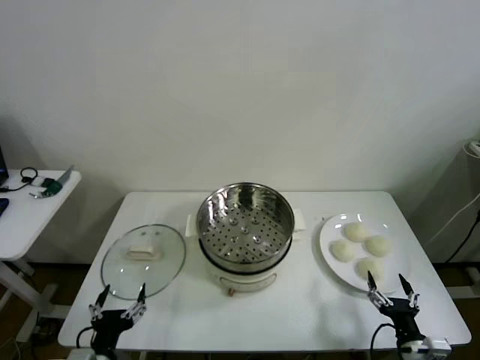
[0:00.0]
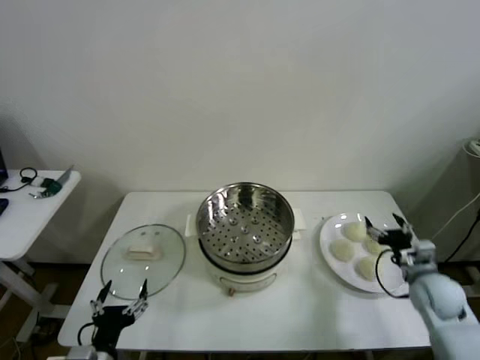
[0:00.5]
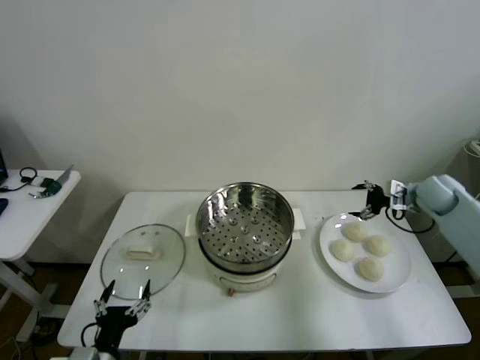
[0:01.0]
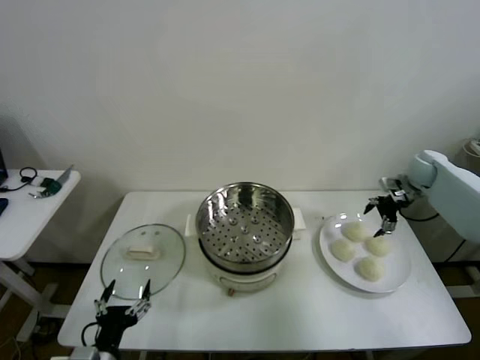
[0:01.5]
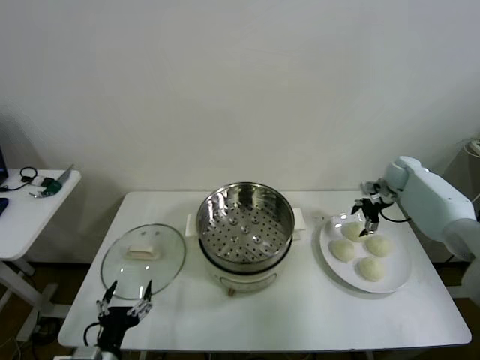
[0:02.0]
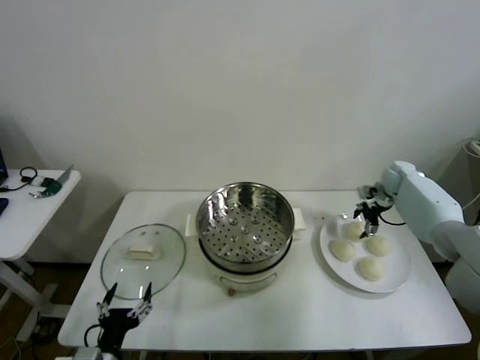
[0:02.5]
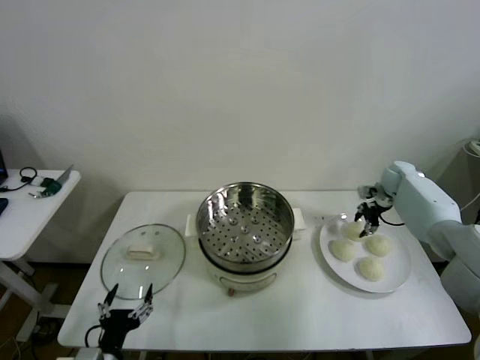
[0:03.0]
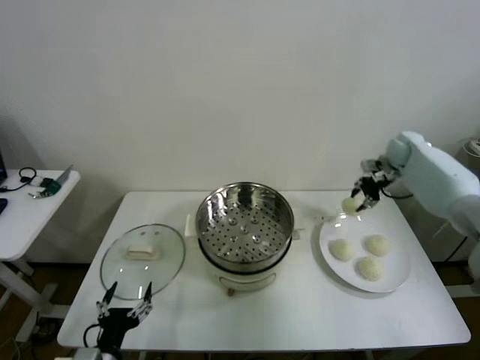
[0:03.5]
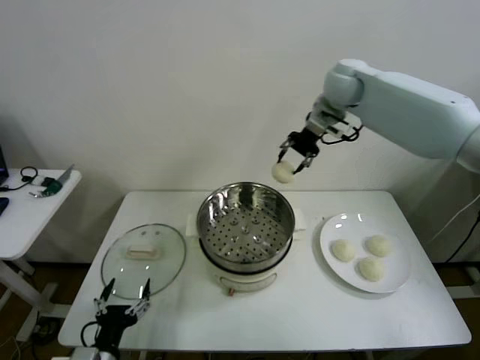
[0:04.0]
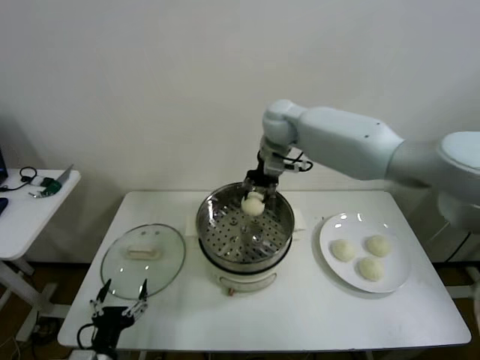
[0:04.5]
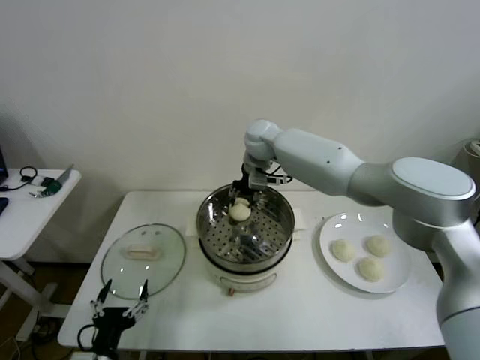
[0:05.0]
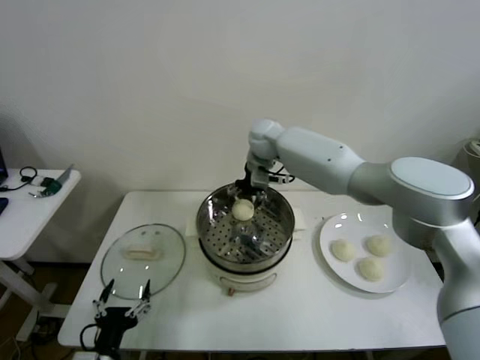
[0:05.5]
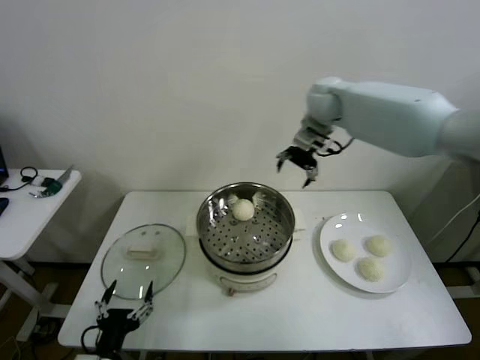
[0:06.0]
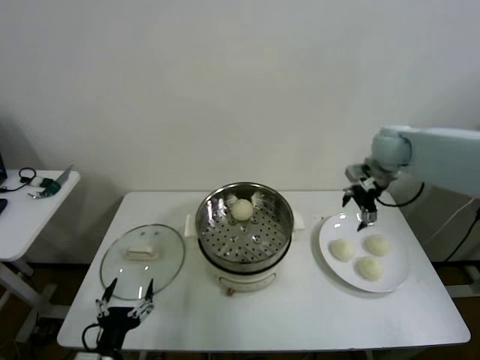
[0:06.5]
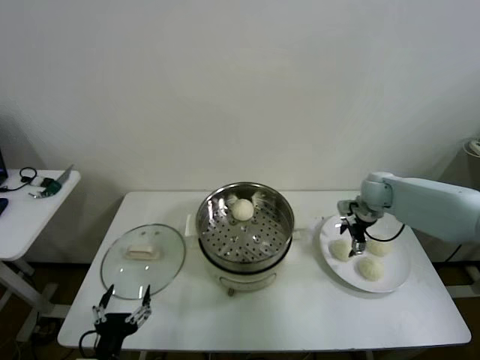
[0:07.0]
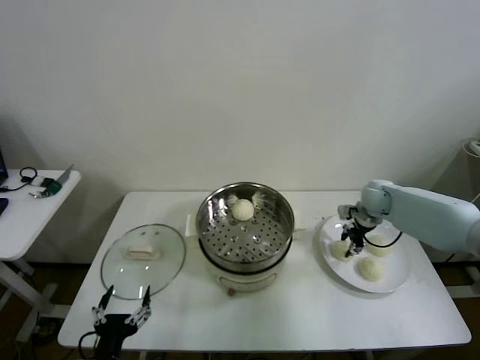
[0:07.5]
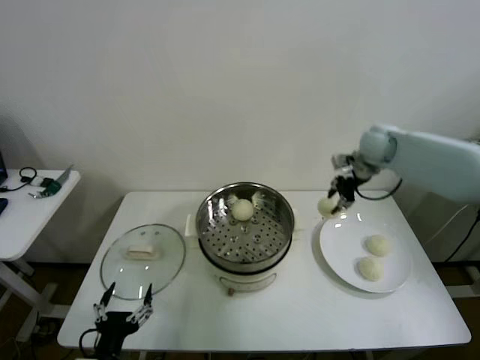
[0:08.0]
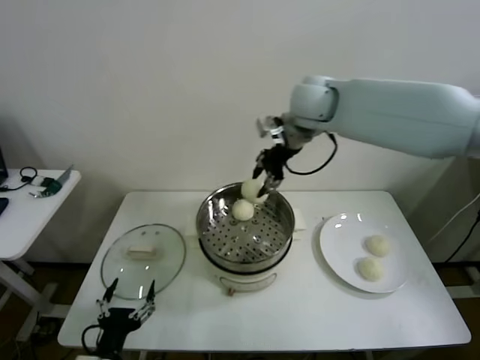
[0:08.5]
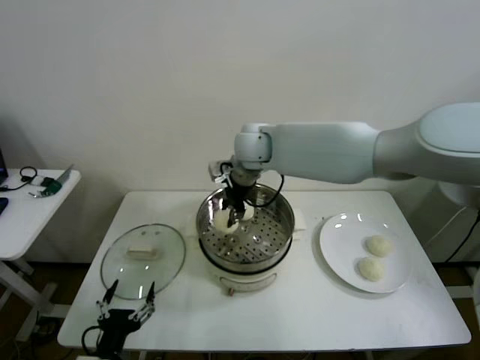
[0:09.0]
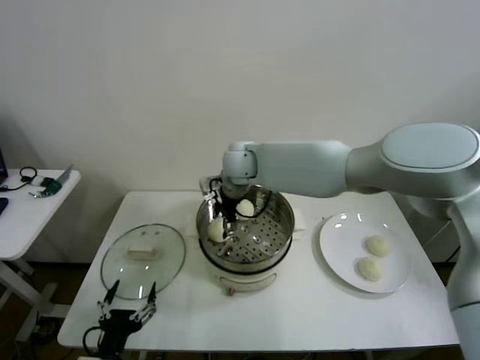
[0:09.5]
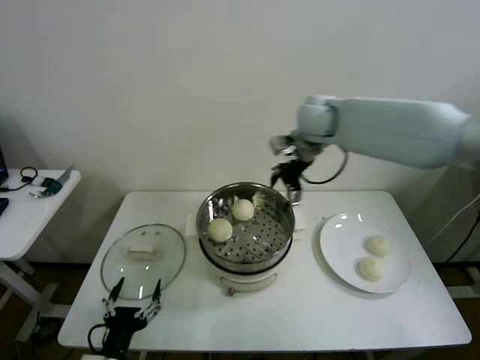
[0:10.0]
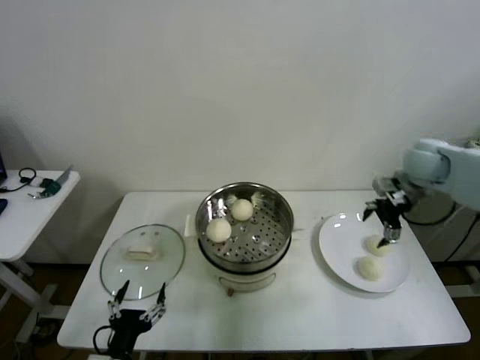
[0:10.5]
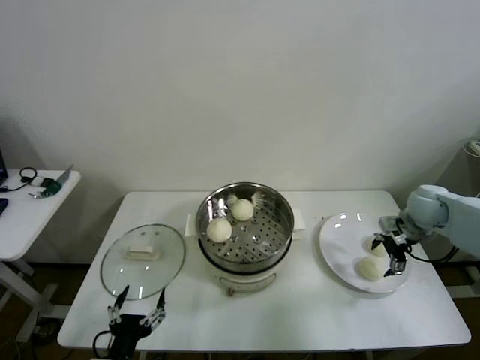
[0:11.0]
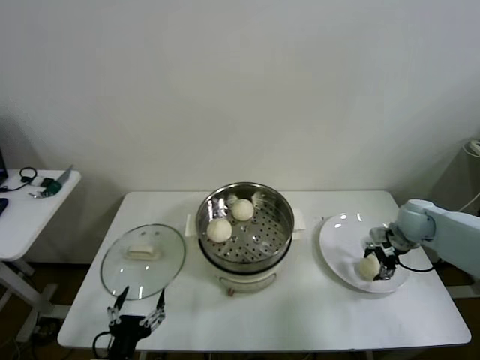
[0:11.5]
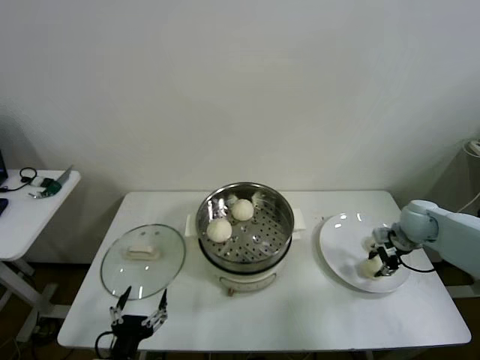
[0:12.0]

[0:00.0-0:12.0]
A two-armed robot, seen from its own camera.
Task of the whole recording: take steamed baozi put them in steamer then cover it.
Step, 0:00.0 to 0:03.0: Grasp the baozi in the plate with right gripper.
Step, 0:03.5 to 0:05.5: Place the baozi on the steamer with right gripper.
Step, 0:06.0 to 0:07.0: Grasp the baozi in the plate with right gripper.
Step, 0:07.5 to 0:09.5: Place the baozi on the steamer with right gripper.
0:02.0 to 0:04.0: The right gripper heads to the left and upward, covering roughly 40 cm, and closes up.
0:04.0 to 0:06.0: The right gripper reaches some 15 cm to the left, then returns, and opens its fingers.
0:06.0 to 0:08.0: The right gripper goes roughly 5 cm to the right, reaches approximately 25 cm downward, then returns, and closes its fingers.
0:08.0 to 0:10.0: The right gripper travels to the left and back again, approximately 30 cm each way, and opens up.
0:10.0 to 0:12.0: The right gripper heads downward and to the right, covering about 35 cm, and closes its fingers.

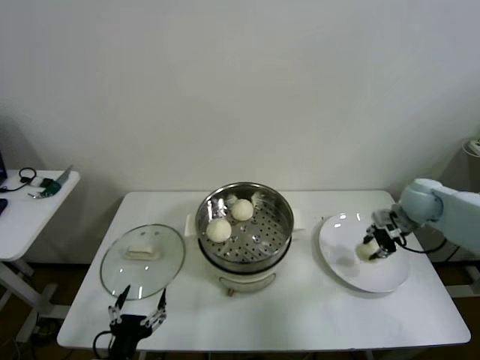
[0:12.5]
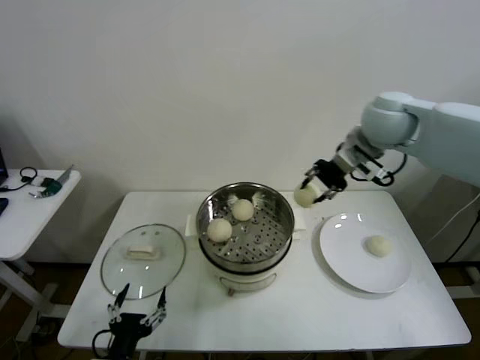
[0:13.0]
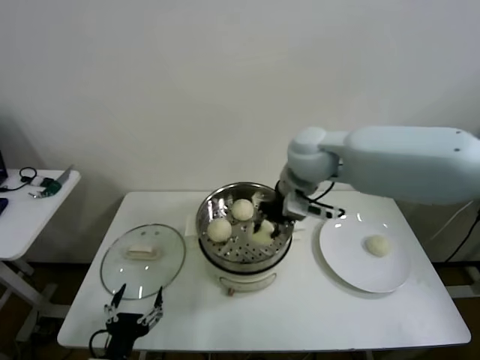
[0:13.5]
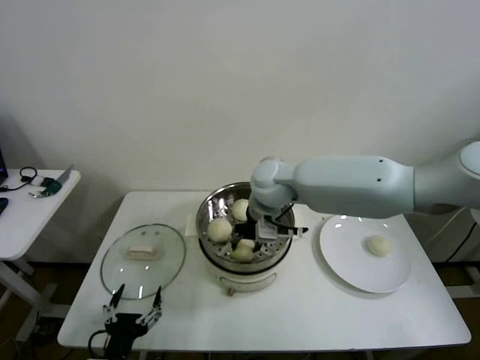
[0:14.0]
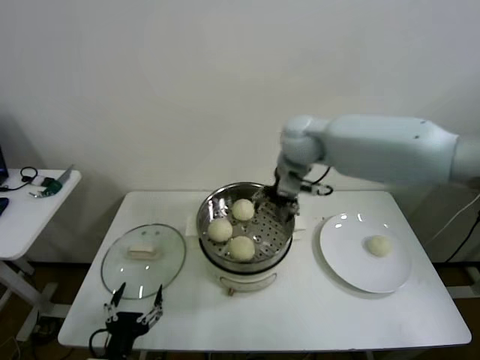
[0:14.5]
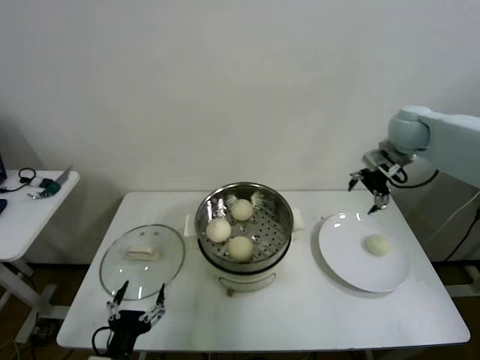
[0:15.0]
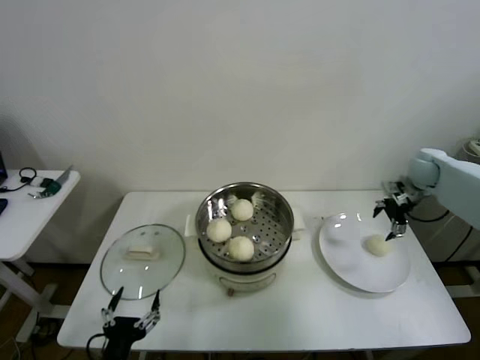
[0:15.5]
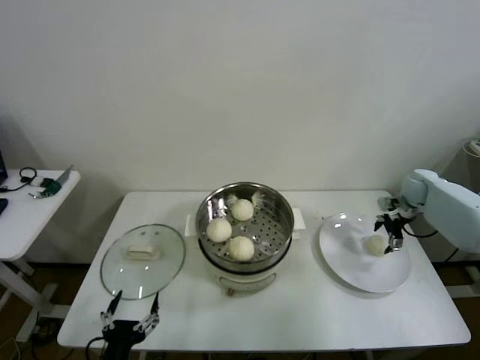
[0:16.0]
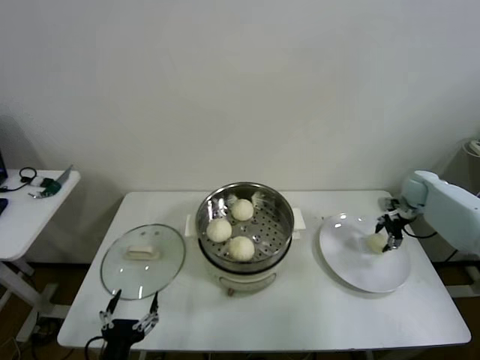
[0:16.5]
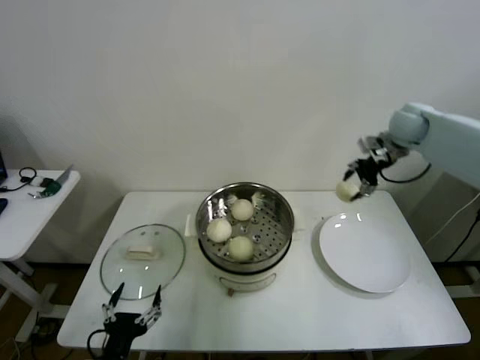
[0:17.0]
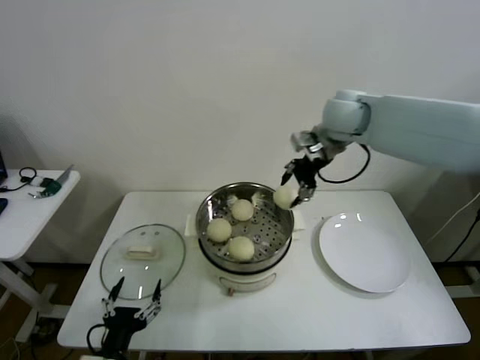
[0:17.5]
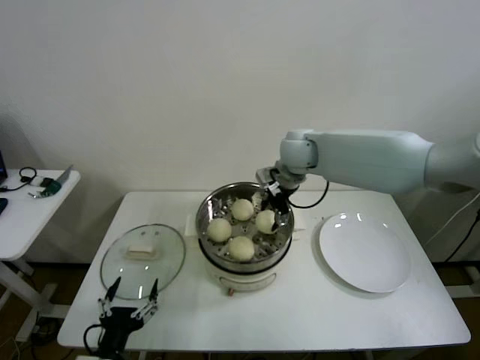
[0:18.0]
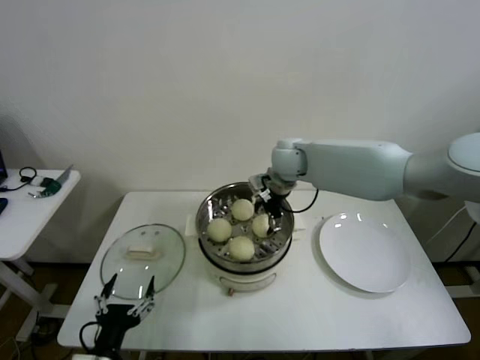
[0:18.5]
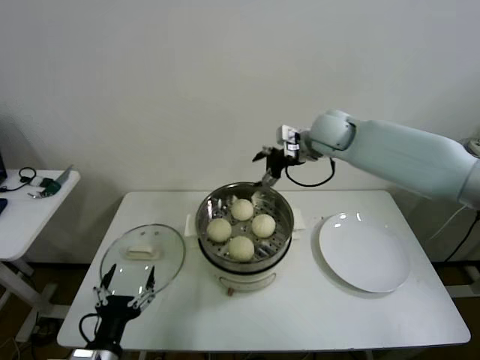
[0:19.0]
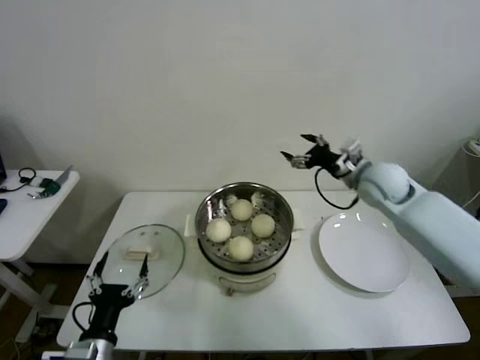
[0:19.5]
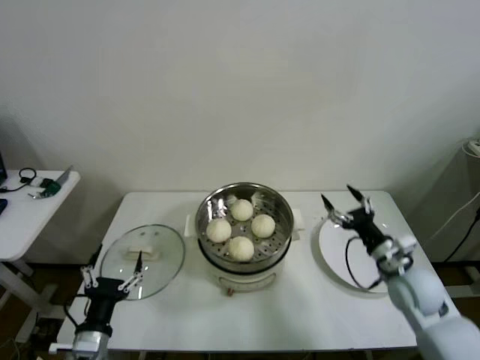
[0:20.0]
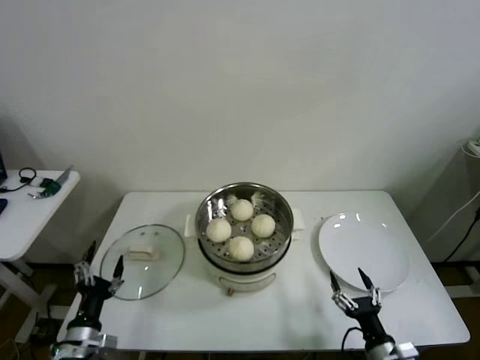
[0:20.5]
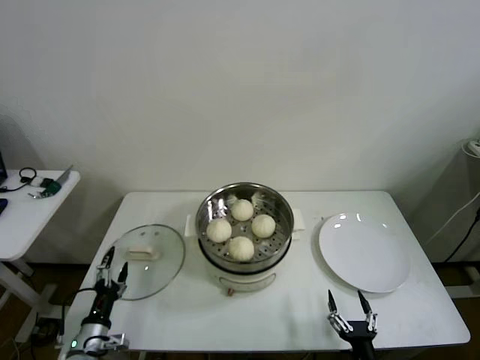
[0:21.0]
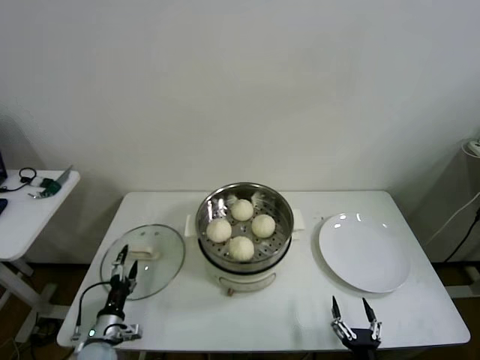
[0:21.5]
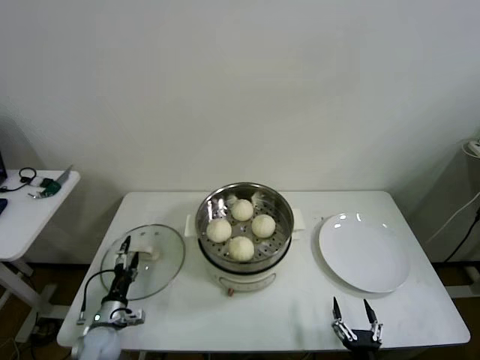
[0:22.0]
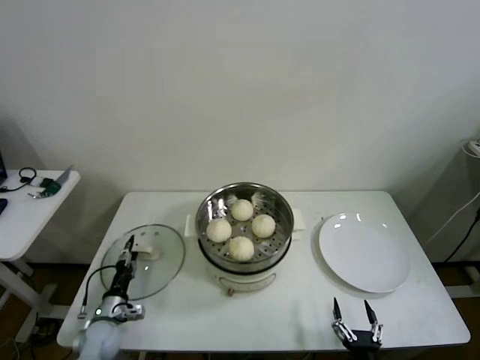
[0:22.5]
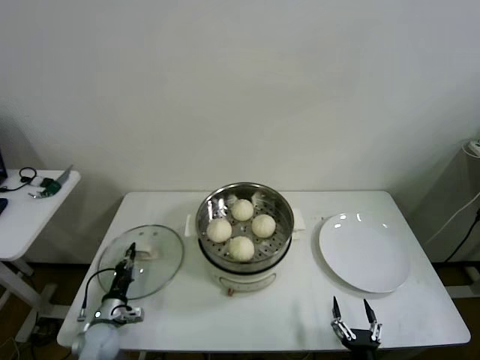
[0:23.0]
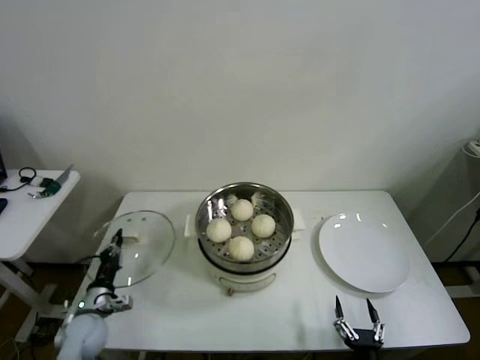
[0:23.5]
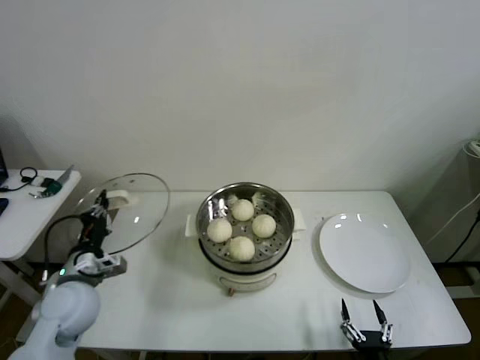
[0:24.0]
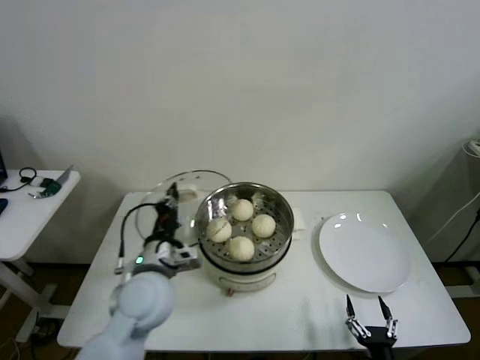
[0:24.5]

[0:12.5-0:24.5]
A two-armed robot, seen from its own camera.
Task of the whole recording: take steamed baozi put them in steamer then cover it.
Step, 0:12.5 to 0:14.0: Place the baozi on the steamer with right gripper.
Step, 0:14.5 to 0:16.0: Grasp the baozi in the plate with right gripper.
Step, 0:16.5 to 0:18.0: Place the baozi on the steamer with right gripper.
Step, 0:19.0 to 0:22.5: Grasp the pot lid with left gripper.
0:12.5 to 0:14.5: The right gripper shifts some 30 cm to the left and upward, and opens.
0:14.5 to 0:16.5: The right gripper shifts roughly 40 cm to the right and downward, and closes its fingers.
0:16.5 to 0:18.5: The right gripper travels to the left by about 35 cm, and opens up.
0:18.5 to 0:20.5: The left gripper heads to the left, forward and downward, covering some 10 cm, while the right gripper moves backward, downward and to the right, approximately 50 cm.
0:20.5 to 0:22.5: The left gripper shifts approximately 15 cm downward and forward. Meanwhile the right gripper shifts roughly 5 cm backward.
0:22.5 to 0:24.5: The left gripper is displaced upward and to the right by approximately 30 cm, and closes.

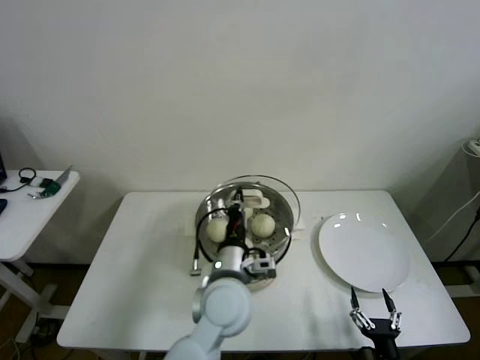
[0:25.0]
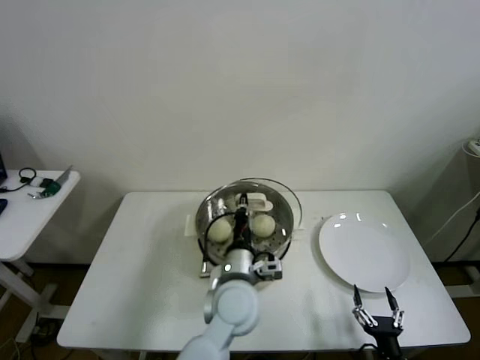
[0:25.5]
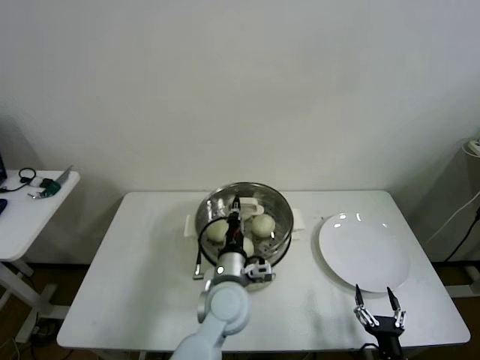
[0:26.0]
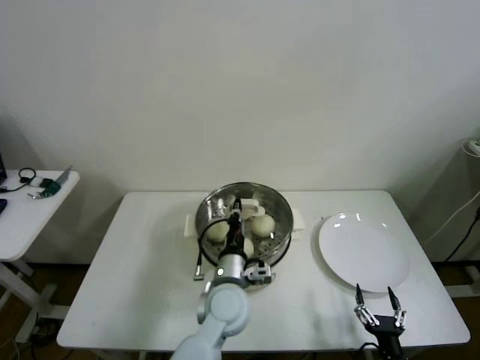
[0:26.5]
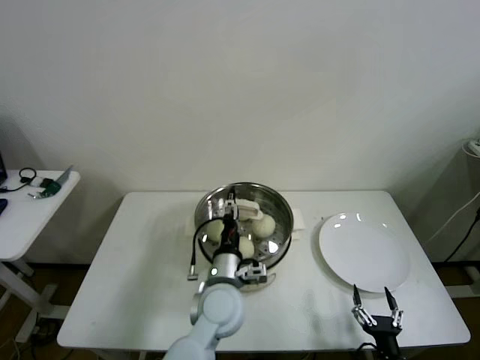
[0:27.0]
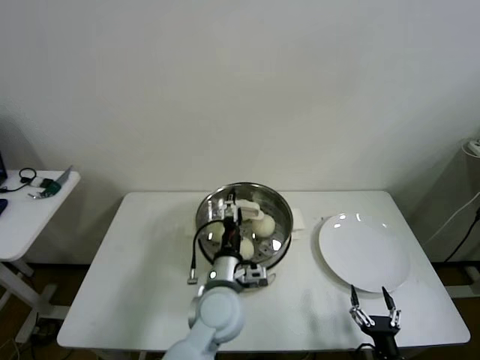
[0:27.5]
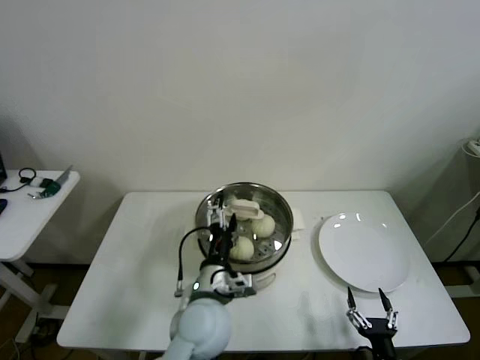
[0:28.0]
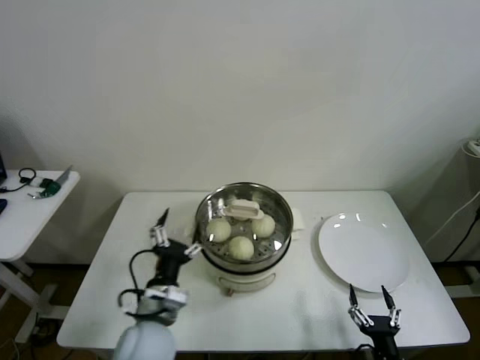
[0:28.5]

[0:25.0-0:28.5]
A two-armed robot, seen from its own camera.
Task of the whole recording: take steamed baozi put them in steamer then cover it.
Step, 0:25.0 to 0:27.0: Place the pot lid on the steamer with left gripper.
0:25.0 to 0:27.0: The left gripper moves downward, some 5 cm, and opens.
0:27.0 to 0:28.5: The left gripper goes about 15 cm to the left and backward, and opens.
